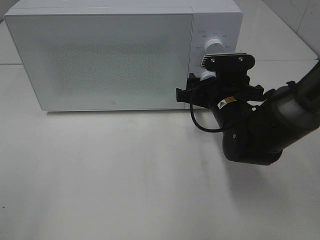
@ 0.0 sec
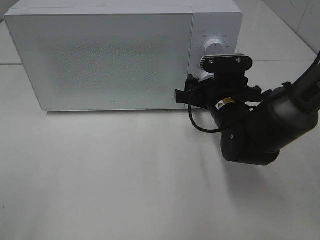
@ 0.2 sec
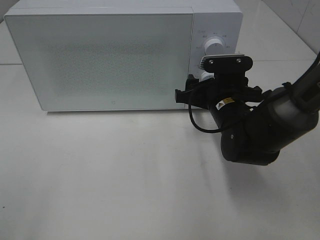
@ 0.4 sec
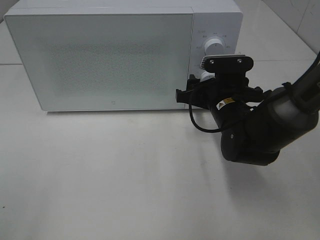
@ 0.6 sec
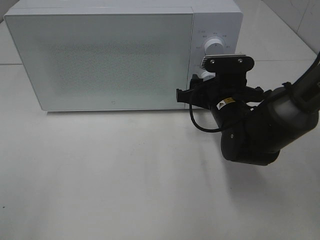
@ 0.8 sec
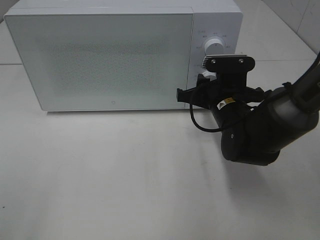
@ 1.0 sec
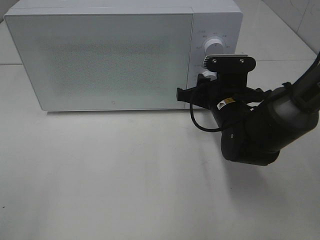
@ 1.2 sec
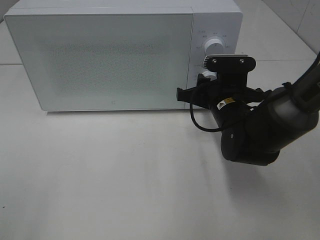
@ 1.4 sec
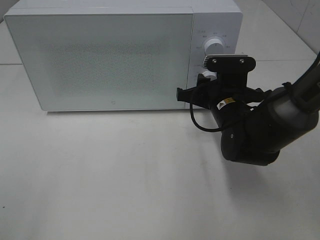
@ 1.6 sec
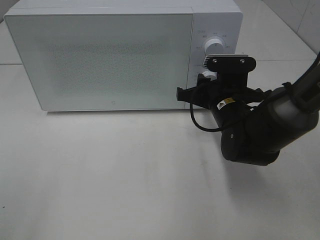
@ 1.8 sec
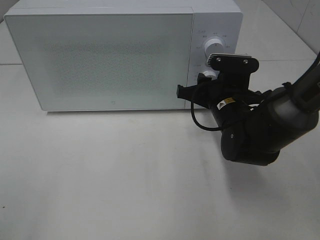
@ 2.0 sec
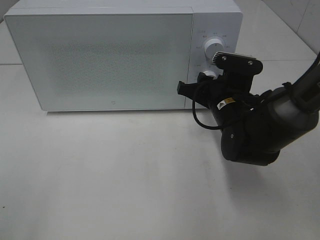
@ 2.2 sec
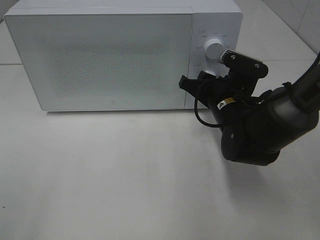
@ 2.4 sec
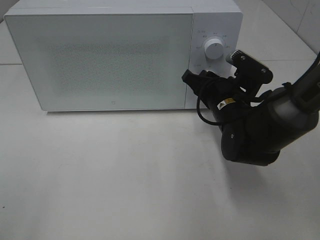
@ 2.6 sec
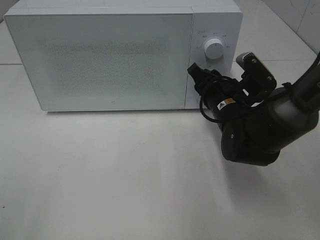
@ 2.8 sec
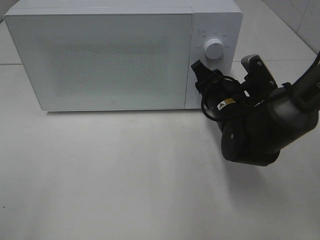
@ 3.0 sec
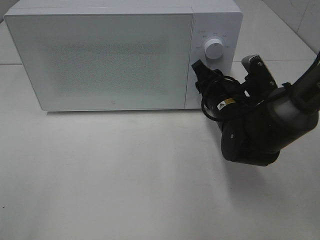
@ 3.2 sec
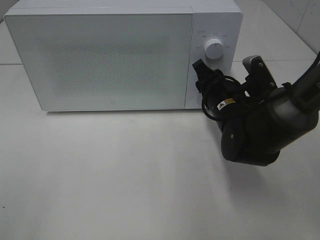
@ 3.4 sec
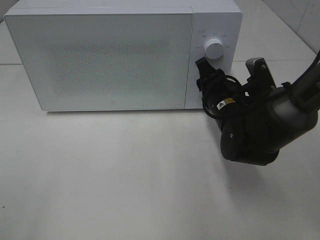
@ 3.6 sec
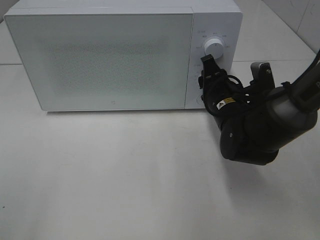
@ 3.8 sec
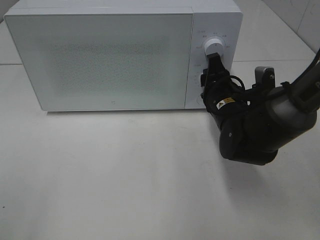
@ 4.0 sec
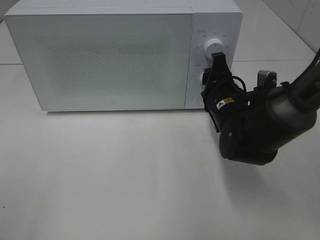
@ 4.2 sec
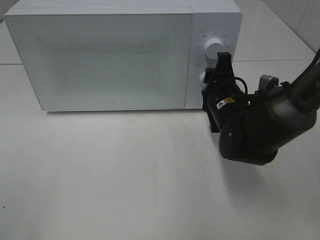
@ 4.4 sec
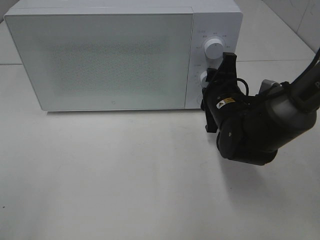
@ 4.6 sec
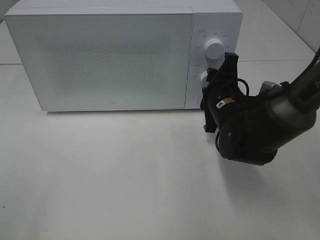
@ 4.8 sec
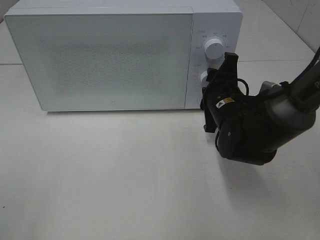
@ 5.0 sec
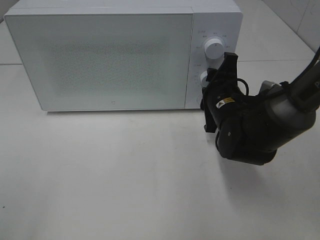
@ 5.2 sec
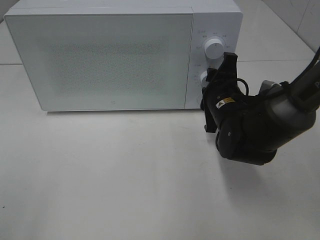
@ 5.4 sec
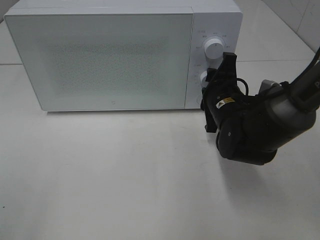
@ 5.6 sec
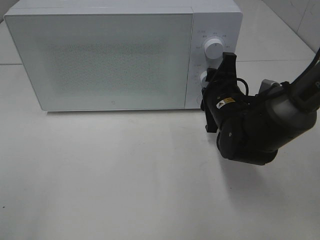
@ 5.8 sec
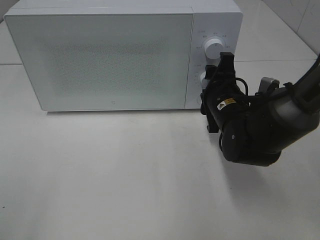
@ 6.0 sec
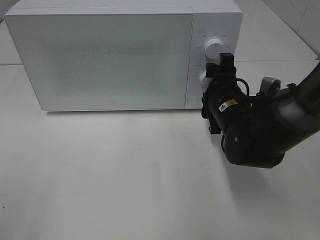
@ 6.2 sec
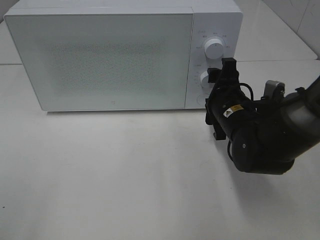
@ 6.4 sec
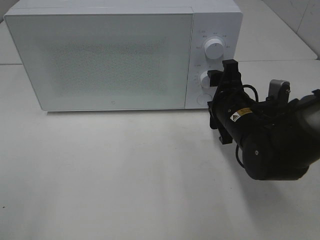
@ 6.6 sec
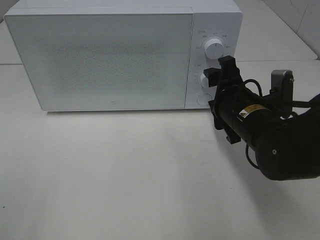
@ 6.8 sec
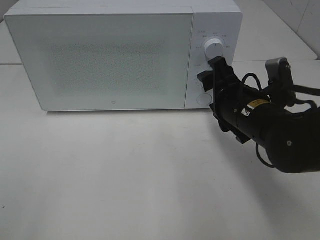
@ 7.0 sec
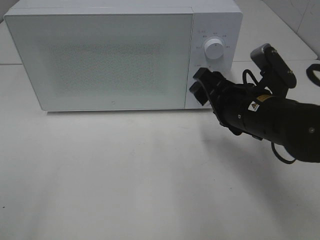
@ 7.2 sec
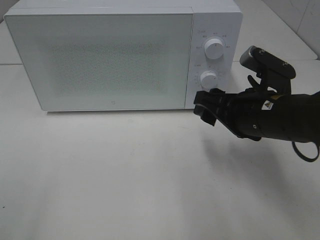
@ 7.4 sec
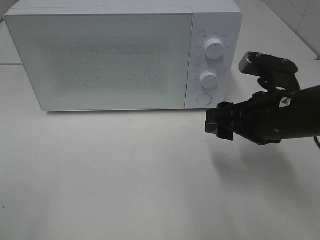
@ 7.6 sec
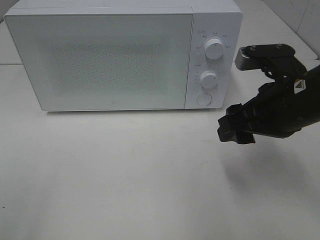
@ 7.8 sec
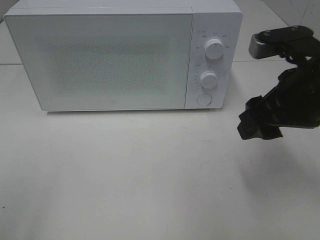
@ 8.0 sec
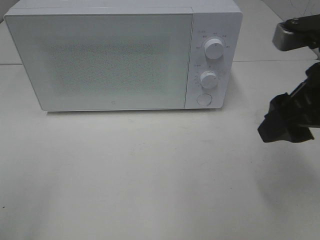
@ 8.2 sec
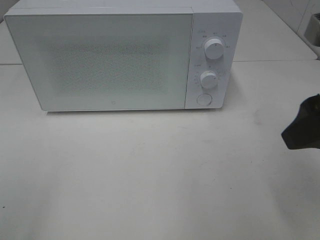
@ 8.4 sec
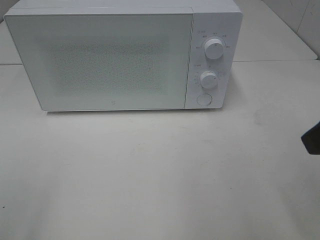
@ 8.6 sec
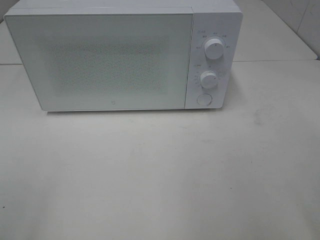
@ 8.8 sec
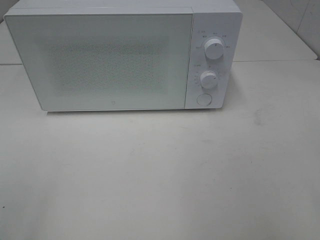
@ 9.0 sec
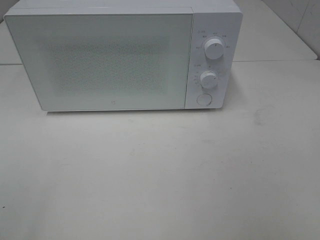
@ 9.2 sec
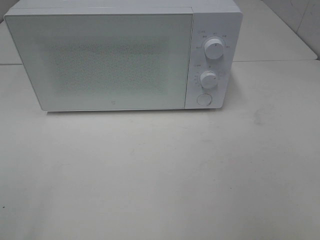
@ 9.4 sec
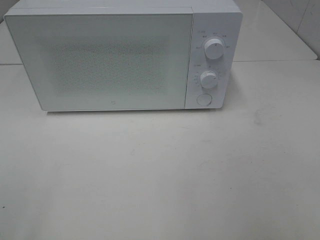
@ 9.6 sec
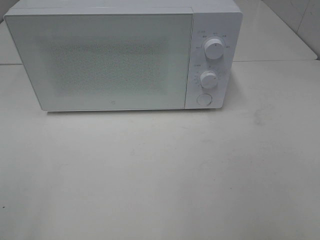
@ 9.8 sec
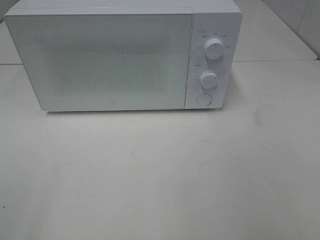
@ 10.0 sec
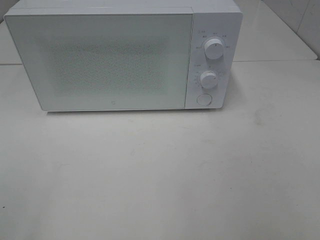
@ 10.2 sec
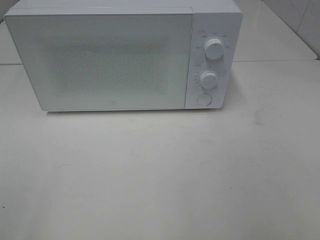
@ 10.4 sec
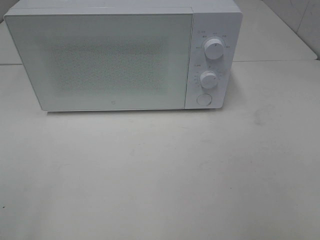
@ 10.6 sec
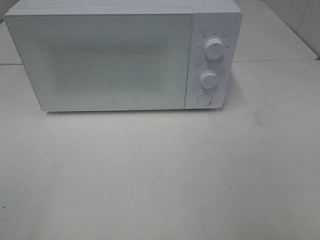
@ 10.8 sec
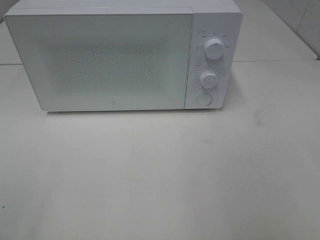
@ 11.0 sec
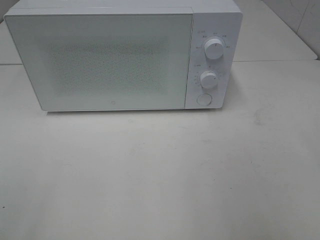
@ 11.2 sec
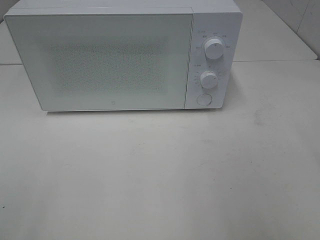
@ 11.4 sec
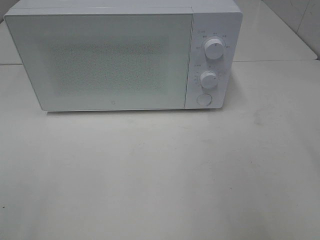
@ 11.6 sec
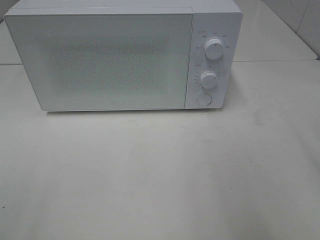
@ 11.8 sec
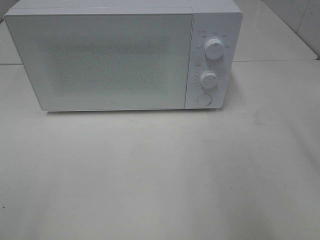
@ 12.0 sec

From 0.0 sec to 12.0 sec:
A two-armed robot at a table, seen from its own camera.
Task of the whole recording: Heat the burger.
Step, from 0.0 sec to 6.2 sec: Right hand: twist timer button.
From 0.0 sec to 1.6 sec: The right gripper closes.
From 4.4 sec to 6.0 sec: The grippers stay close to where they were, moving slightly.
From 6.0 sec to 7.6 sec: The right gripper moves backward and upward, some 10 cm.
From 7.6 sec to 9.0 sec: The right gripper moves backward, upward and to the right, approximately 20 cm.

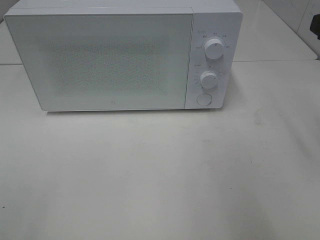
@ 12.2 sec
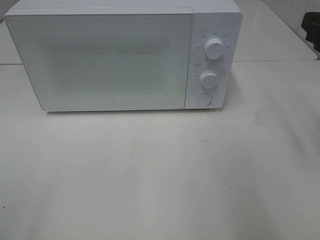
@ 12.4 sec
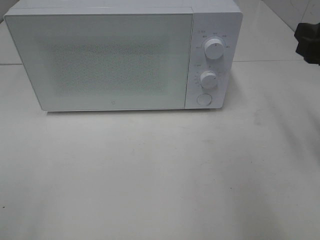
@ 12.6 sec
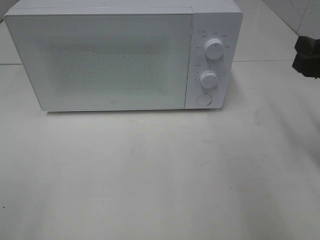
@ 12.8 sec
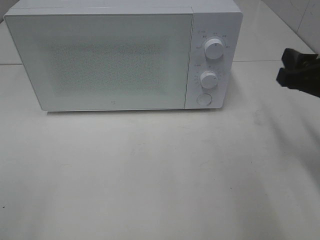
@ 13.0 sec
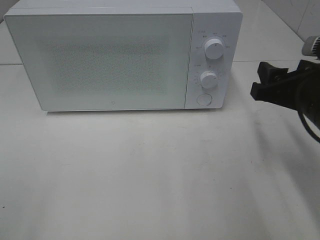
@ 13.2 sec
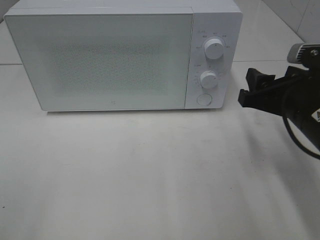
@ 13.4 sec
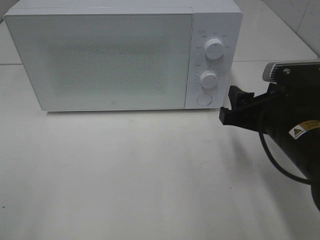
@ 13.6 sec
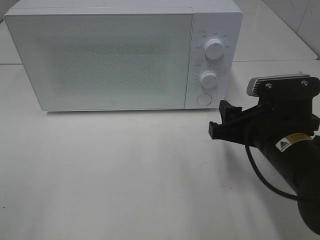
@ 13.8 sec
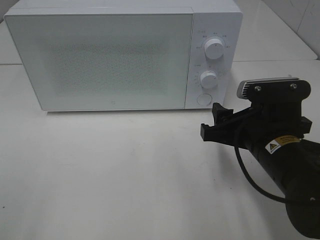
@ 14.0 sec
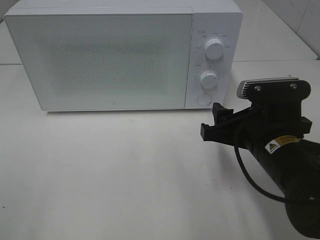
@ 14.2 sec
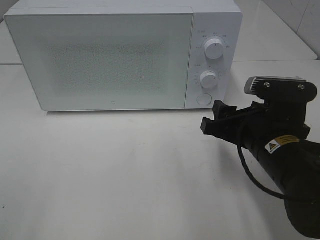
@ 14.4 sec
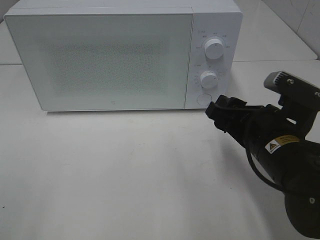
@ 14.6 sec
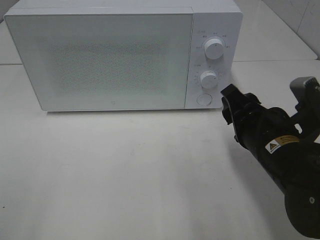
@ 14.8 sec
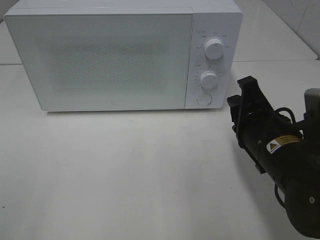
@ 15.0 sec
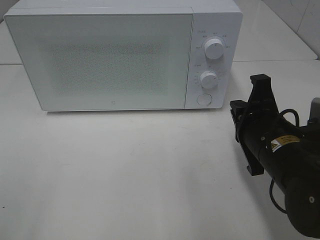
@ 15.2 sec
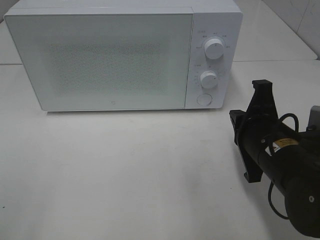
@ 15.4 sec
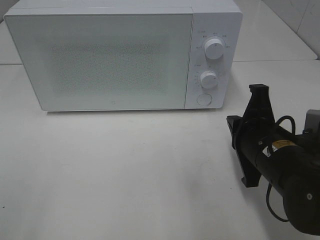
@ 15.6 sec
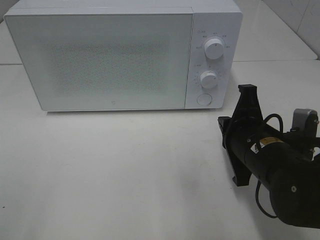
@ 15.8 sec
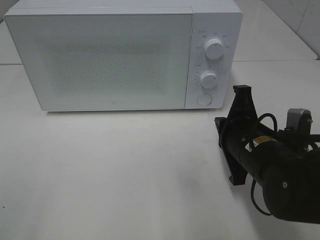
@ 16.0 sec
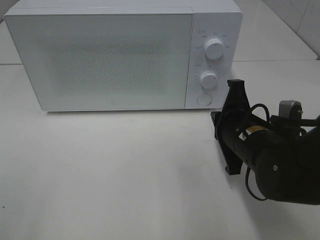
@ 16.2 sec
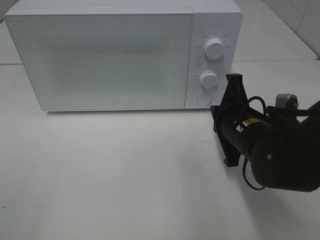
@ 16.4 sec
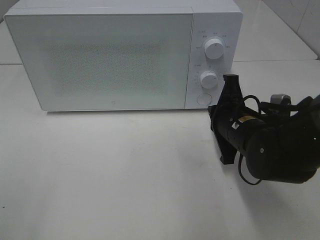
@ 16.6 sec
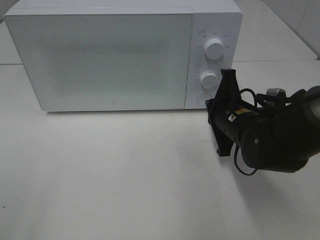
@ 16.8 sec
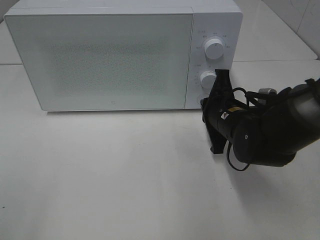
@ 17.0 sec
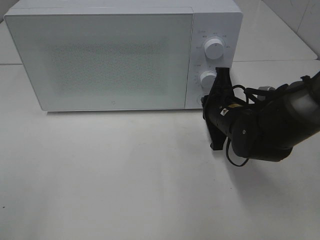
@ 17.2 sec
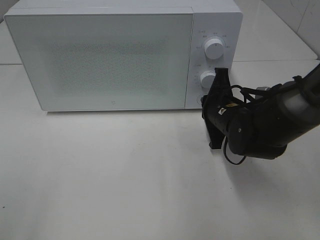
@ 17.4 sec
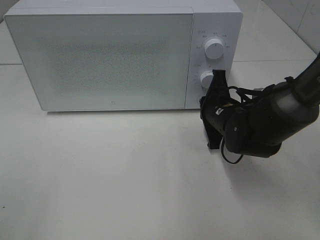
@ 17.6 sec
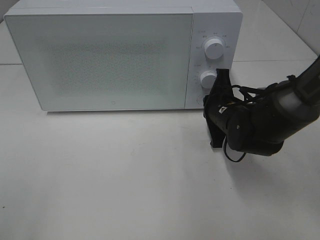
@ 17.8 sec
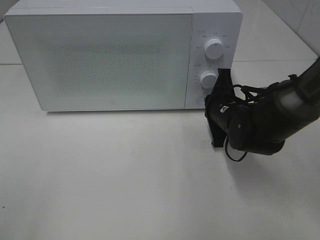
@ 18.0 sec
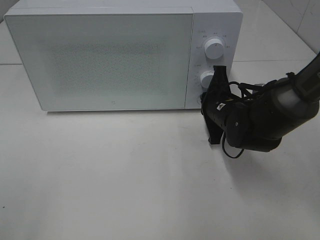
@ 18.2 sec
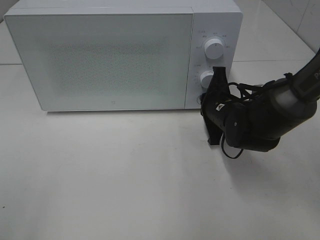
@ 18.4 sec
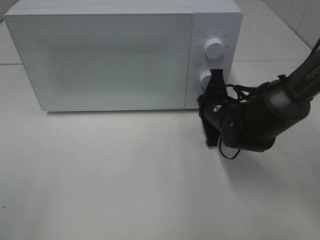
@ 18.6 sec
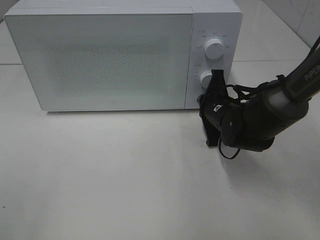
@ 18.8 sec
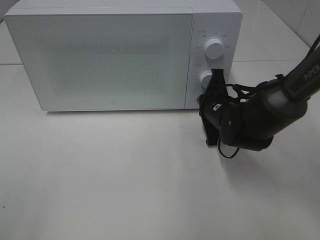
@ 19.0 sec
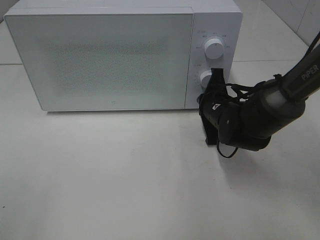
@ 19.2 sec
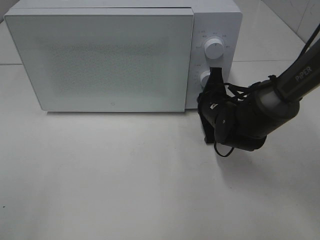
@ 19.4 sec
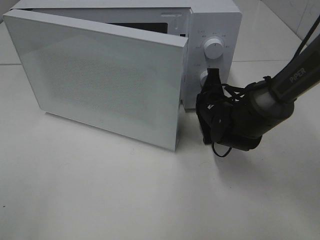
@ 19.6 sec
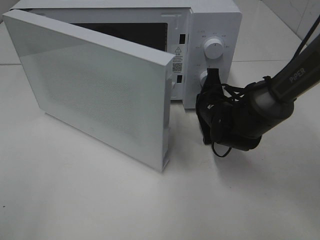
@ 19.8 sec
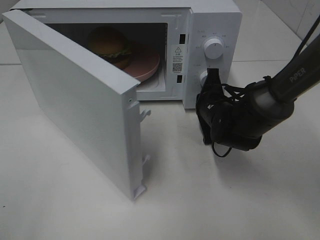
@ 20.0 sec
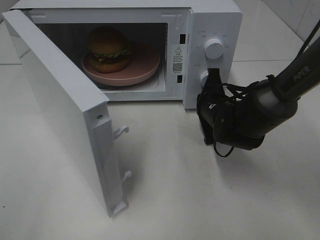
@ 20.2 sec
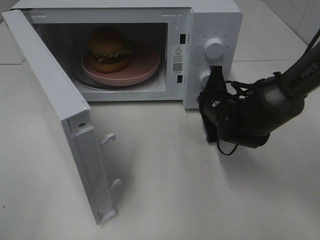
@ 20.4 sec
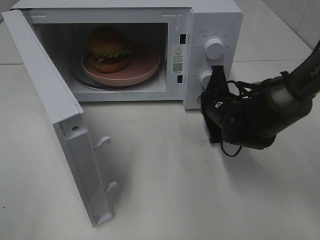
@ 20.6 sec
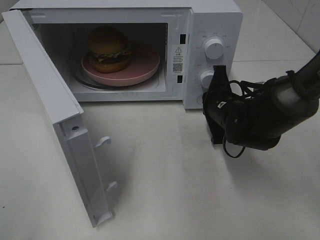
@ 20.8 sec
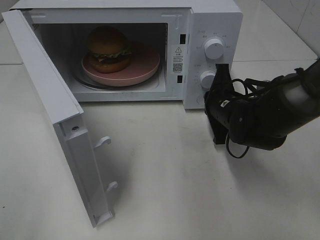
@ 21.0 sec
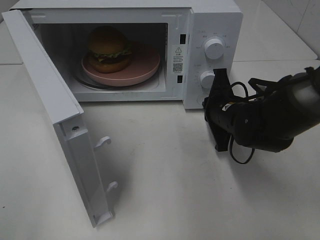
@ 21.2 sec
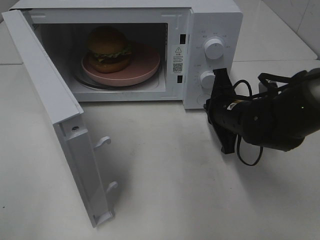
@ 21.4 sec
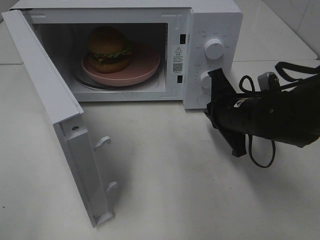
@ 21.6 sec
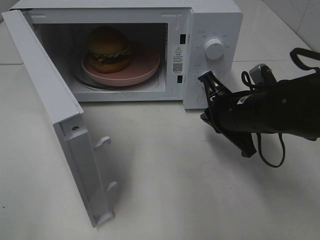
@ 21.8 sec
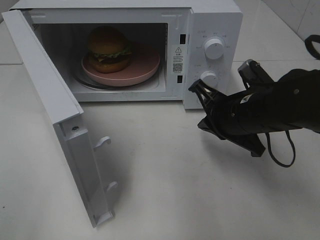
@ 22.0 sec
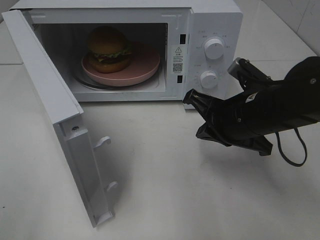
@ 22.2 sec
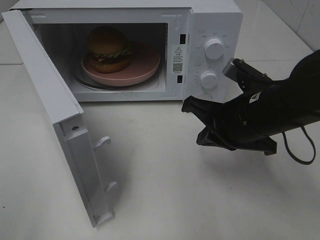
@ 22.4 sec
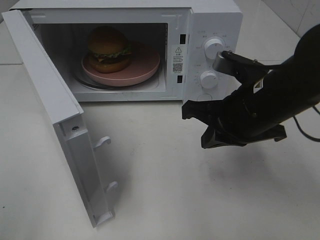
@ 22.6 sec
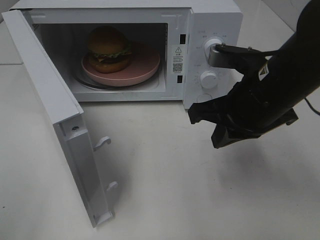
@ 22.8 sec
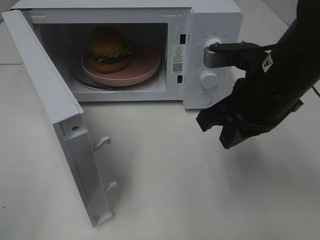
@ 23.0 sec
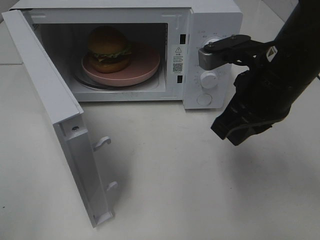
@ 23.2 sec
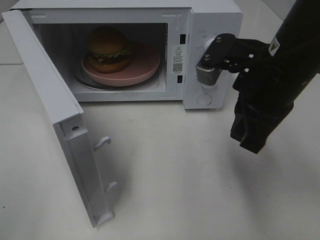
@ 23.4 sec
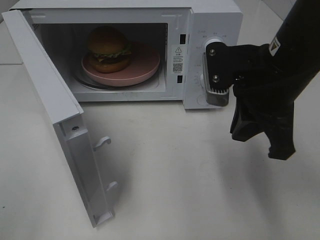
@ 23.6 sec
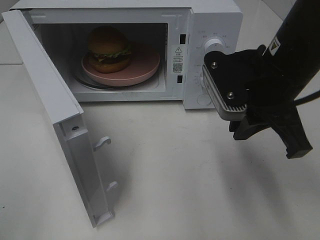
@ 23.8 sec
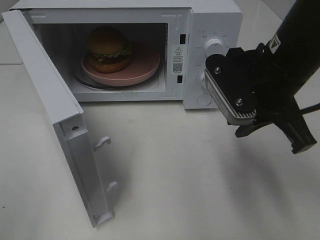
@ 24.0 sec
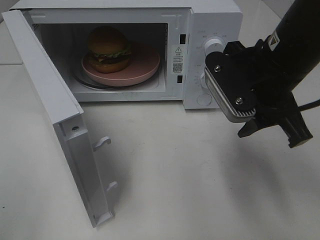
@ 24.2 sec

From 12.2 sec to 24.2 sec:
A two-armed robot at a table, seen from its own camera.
Task of the whole recording: Heat the burger.
Step, from 12.2 sec to 21.2 sec: Right hand: press the switch.
From 12.2 sec to 13.8 sec: The right gripper goes roughly 20 cm downward and to the left.
From 13.8 sec to 15.2 sec: The right gripper closes its fingers.
From 15.2 sec to 16.6 sec: The right gripper moves forward, roughly 5 cm.
From 16.6 sec to 18.2 sec: The right gripper is displaced forward by some 5 cm.
From 21.2 sec to 22.6 sec: The right gripper moves upward and backward, approximately 10 cm.
From 22.6 sec to 24.2 sec: The right gripper shifts approximately 5 cm upward, and opens its fingers.
